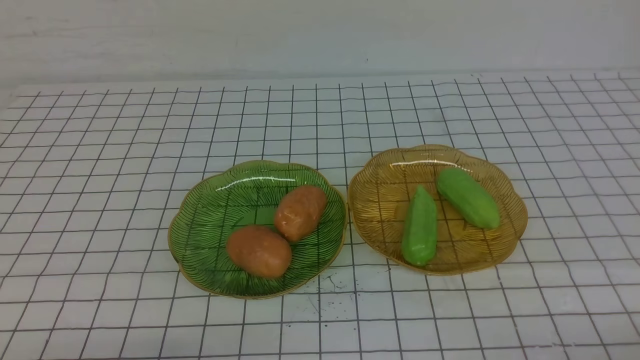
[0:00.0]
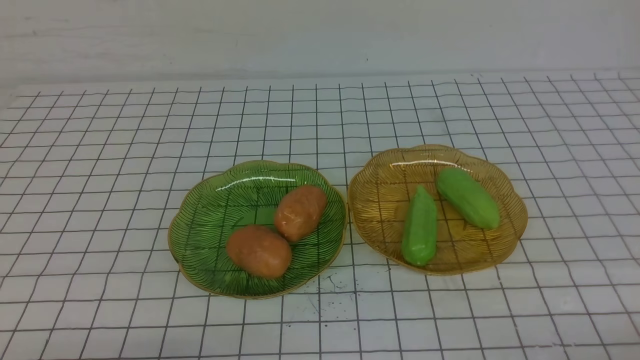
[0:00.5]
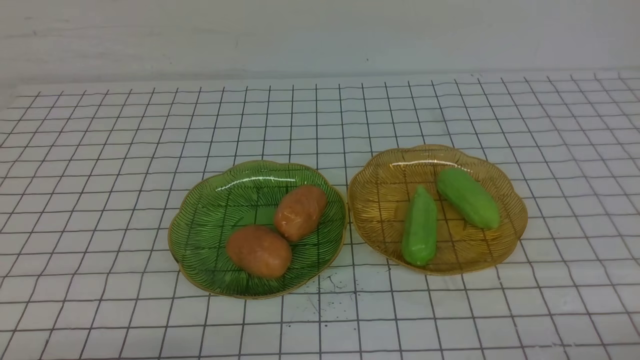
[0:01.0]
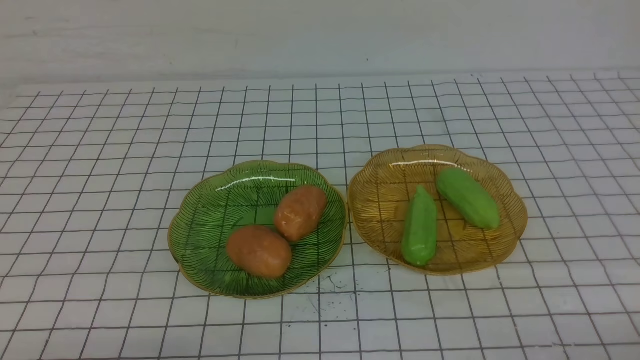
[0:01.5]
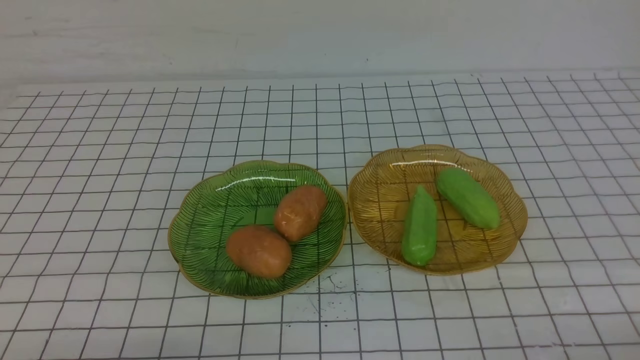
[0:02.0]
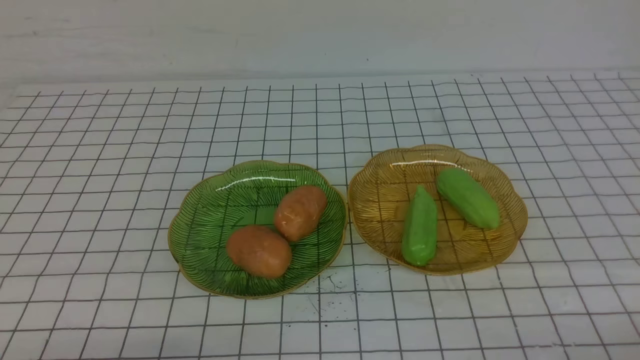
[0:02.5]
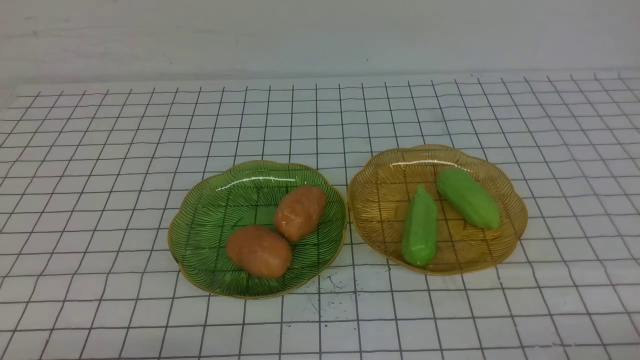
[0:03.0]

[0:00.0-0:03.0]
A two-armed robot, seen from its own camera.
0:00.0 to 0:03.0: The two grippers keep their place.
